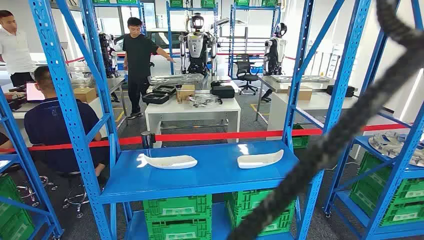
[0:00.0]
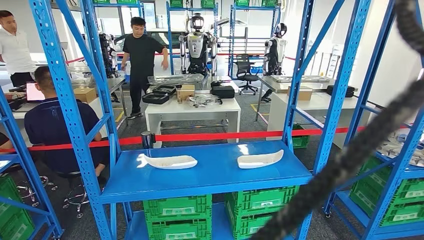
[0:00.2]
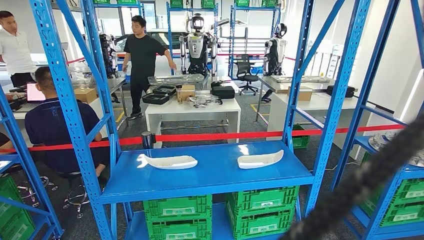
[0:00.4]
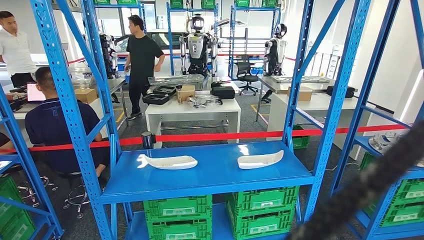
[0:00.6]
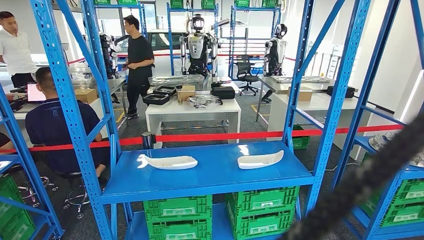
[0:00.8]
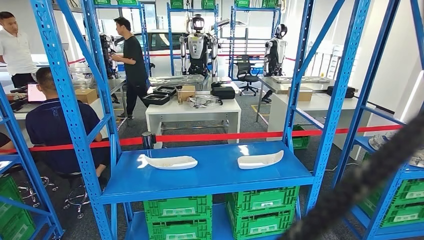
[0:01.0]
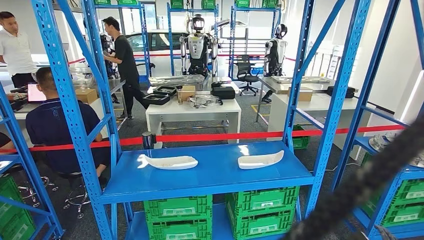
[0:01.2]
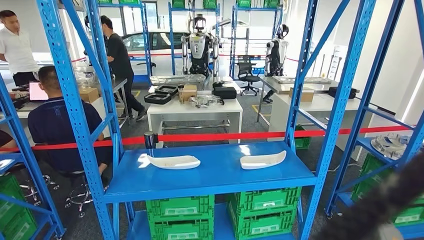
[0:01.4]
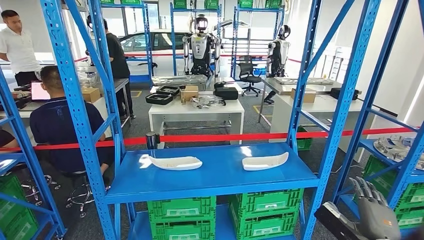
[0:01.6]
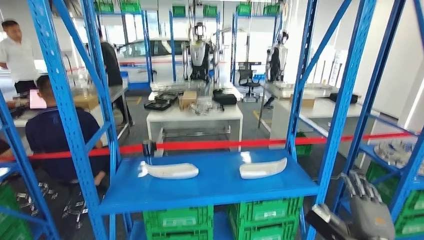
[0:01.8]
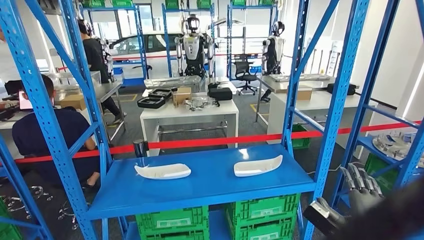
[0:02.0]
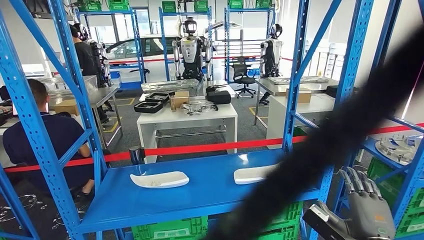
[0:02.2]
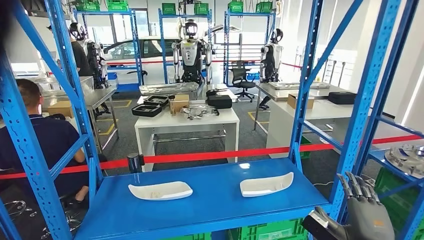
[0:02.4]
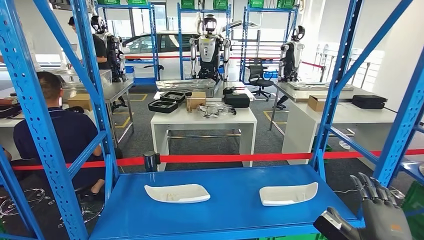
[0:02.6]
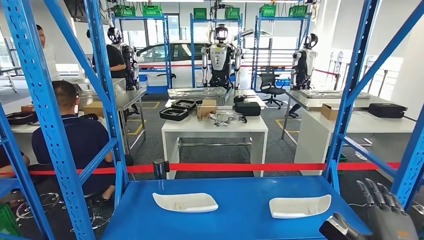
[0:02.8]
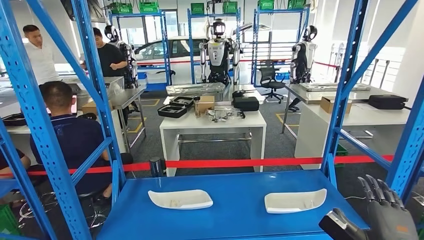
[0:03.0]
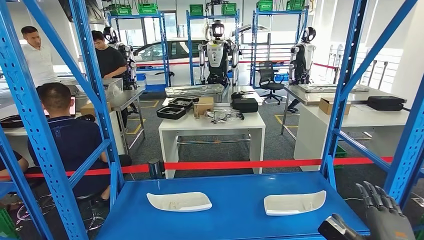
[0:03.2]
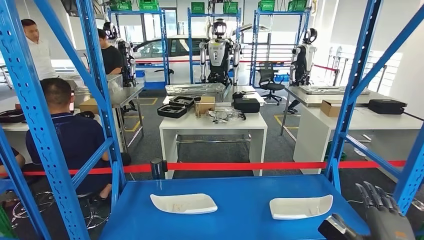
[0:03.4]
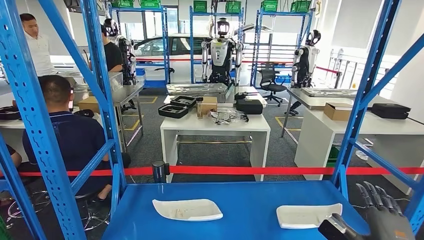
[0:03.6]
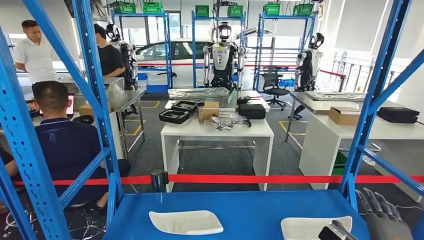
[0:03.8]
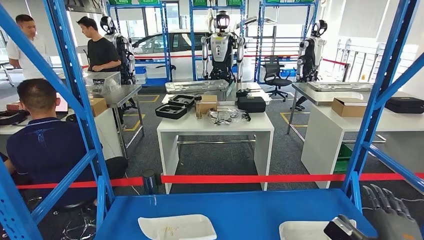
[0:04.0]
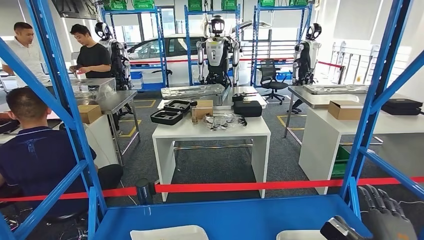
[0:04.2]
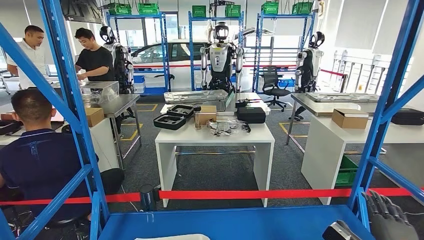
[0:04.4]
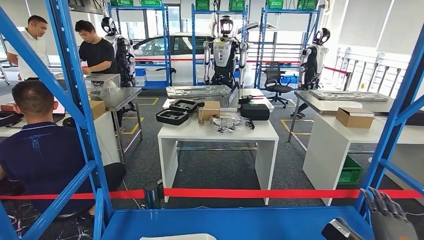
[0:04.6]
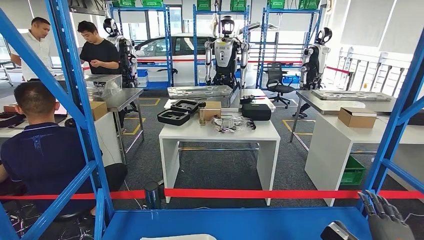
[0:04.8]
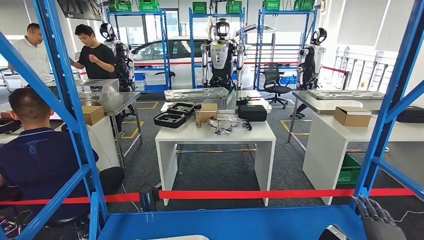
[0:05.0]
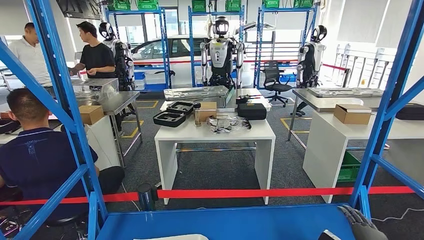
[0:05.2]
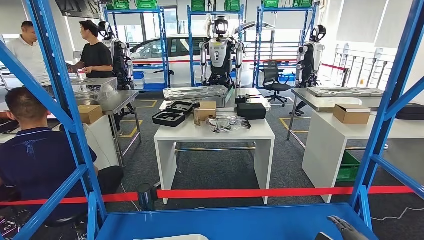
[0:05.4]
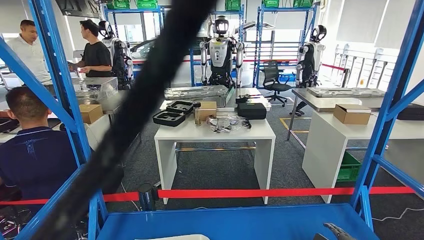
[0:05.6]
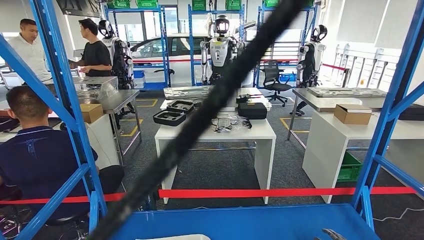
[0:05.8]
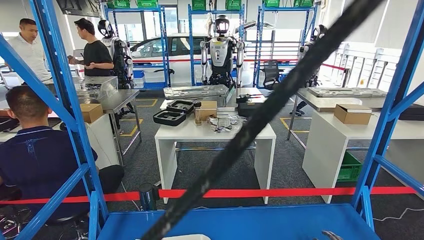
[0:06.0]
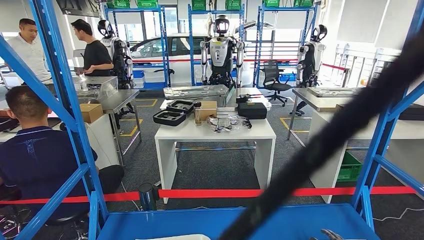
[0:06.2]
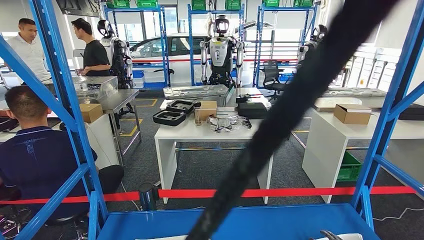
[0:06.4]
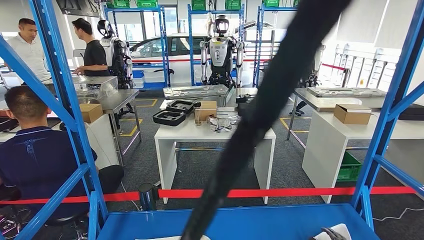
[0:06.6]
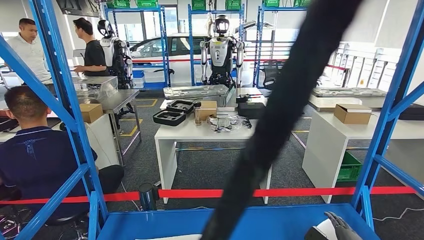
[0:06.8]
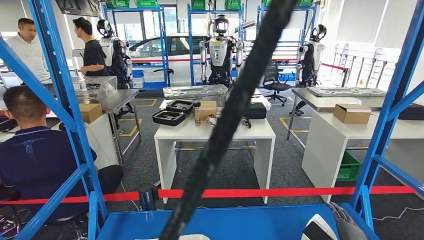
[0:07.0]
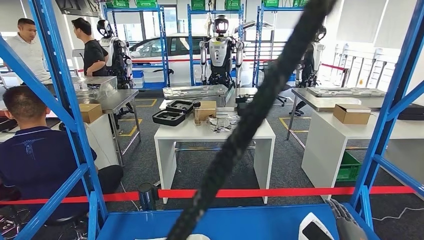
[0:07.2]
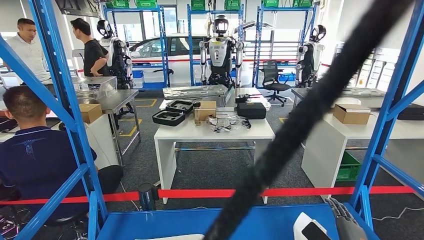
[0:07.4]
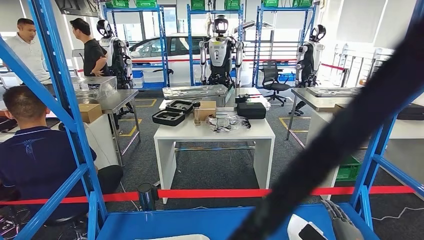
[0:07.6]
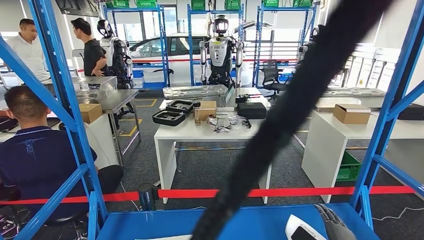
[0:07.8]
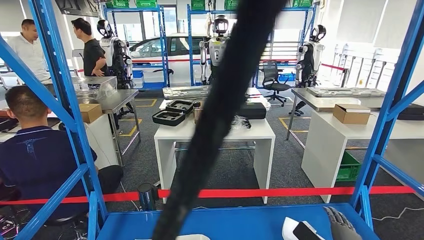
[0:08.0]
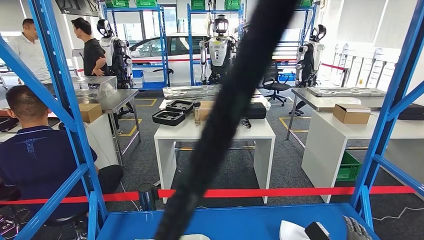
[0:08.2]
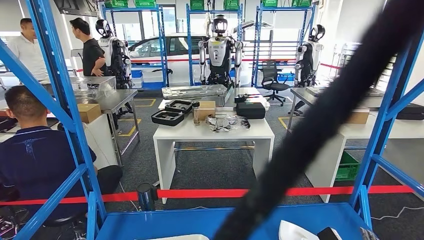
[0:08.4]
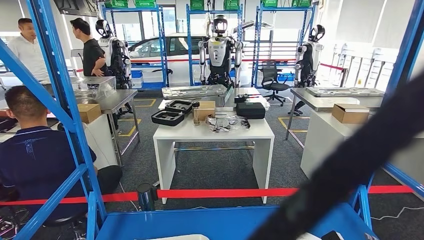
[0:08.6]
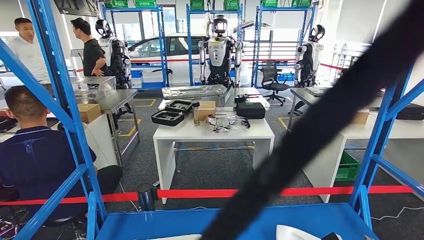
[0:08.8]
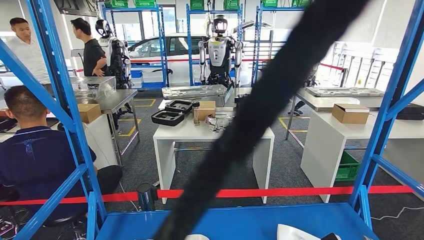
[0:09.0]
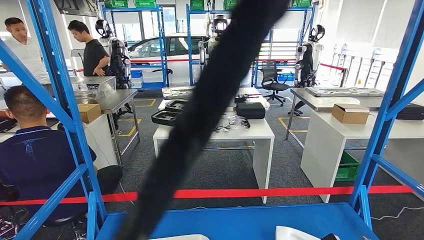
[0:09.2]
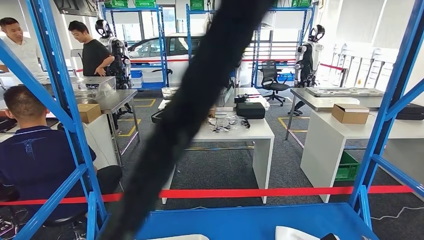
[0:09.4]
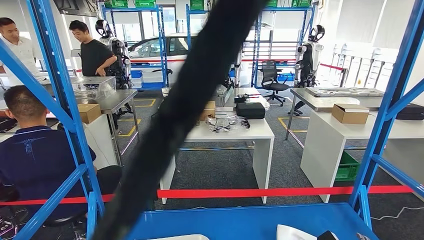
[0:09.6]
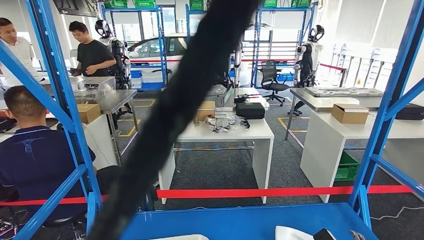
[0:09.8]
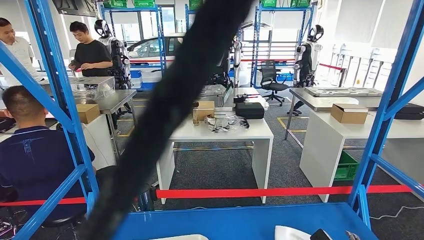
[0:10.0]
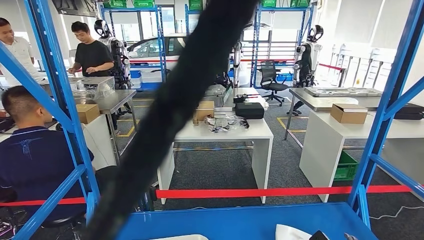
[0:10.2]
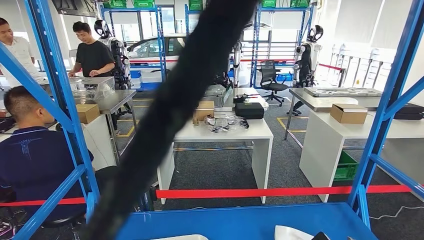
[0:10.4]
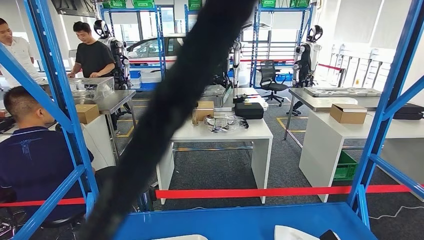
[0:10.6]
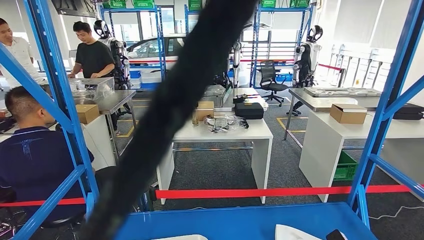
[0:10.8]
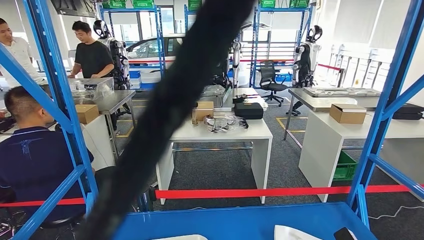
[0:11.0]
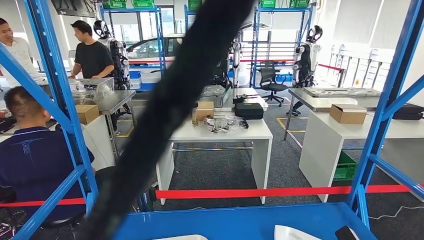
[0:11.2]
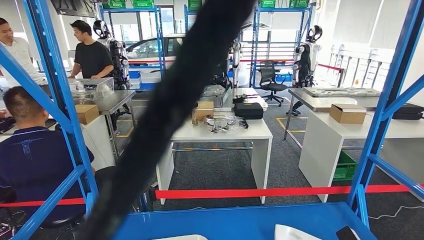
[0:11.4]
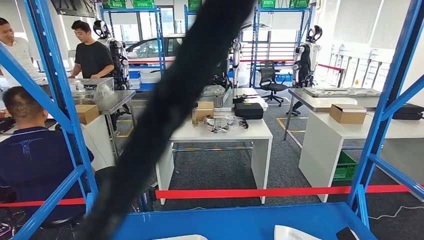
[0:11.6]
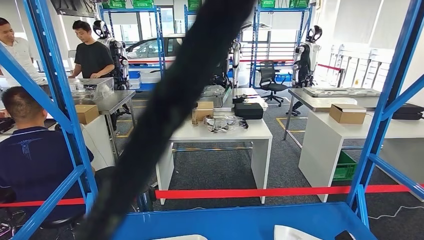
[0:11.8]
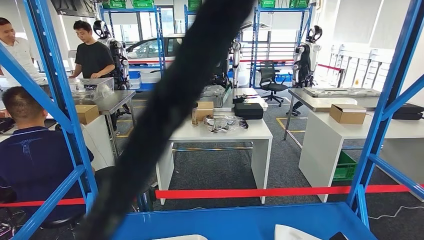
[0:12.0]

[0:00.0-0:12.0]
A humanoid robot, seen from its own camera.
0:10.4 to 0:12.0: The hands stay close to where they were, moving slightly.

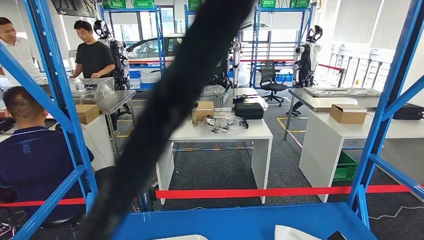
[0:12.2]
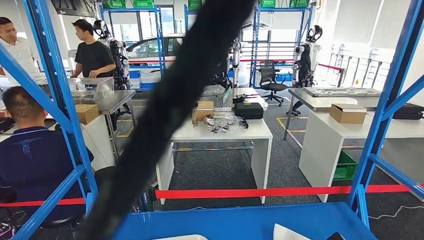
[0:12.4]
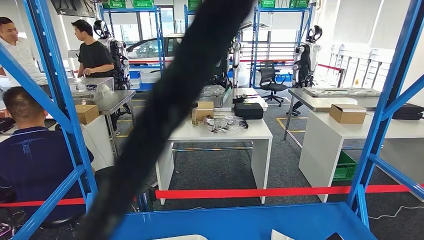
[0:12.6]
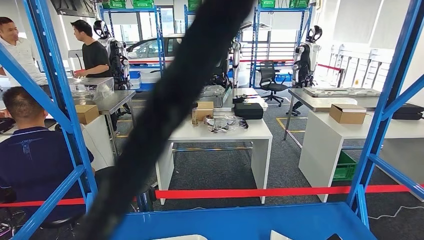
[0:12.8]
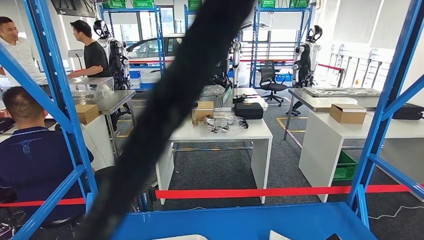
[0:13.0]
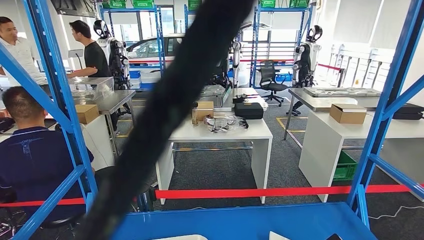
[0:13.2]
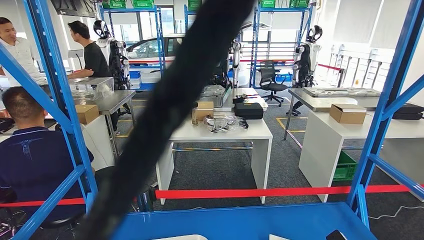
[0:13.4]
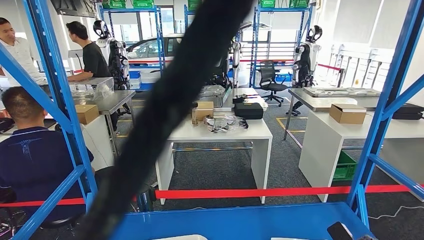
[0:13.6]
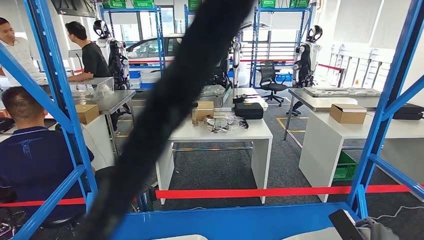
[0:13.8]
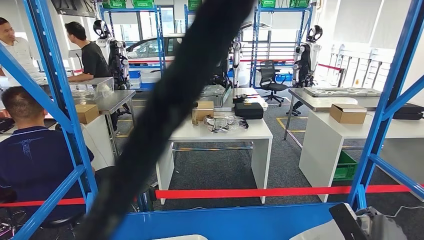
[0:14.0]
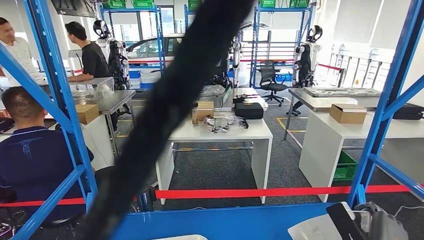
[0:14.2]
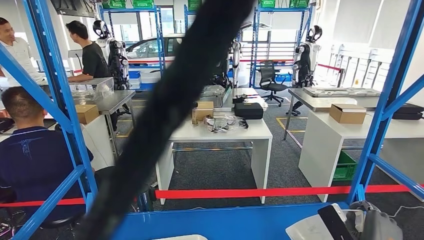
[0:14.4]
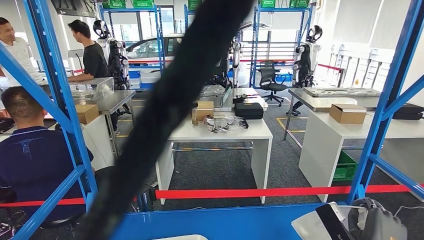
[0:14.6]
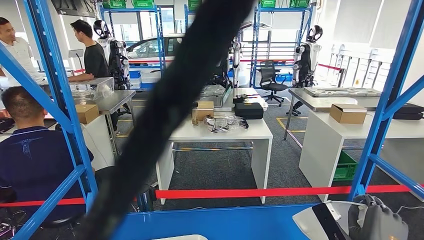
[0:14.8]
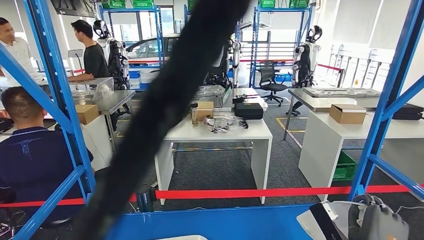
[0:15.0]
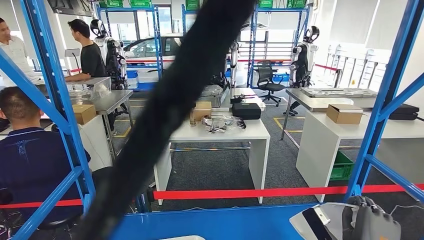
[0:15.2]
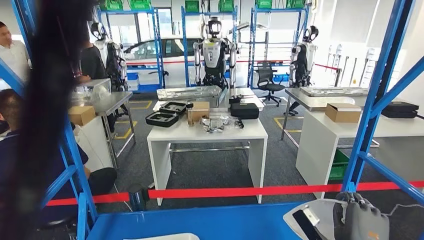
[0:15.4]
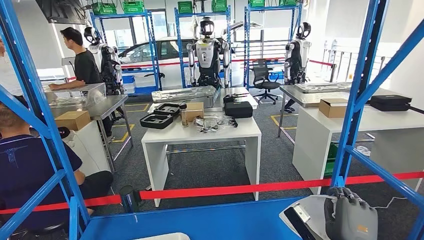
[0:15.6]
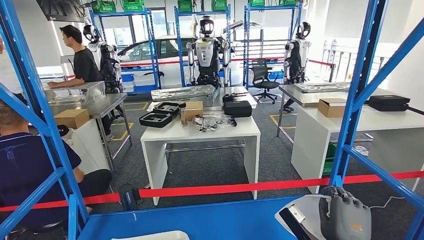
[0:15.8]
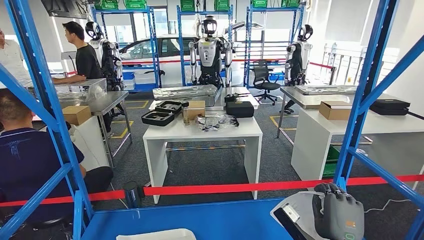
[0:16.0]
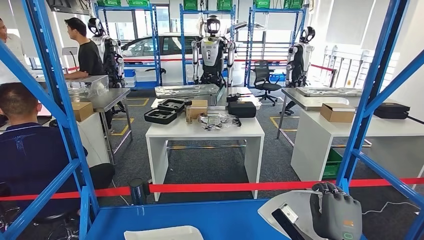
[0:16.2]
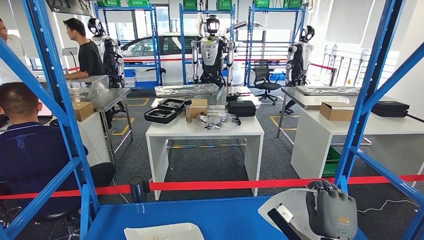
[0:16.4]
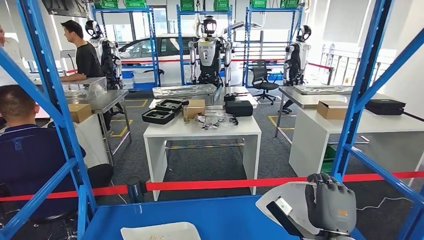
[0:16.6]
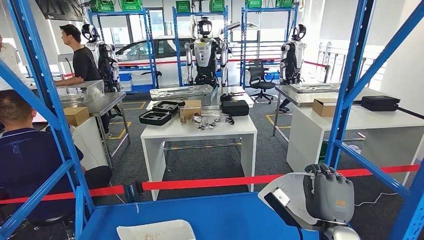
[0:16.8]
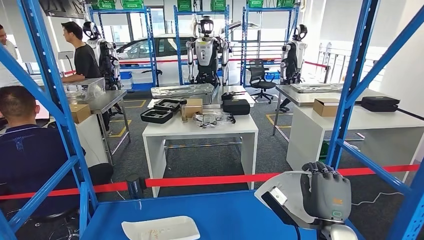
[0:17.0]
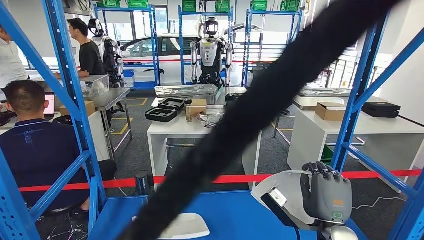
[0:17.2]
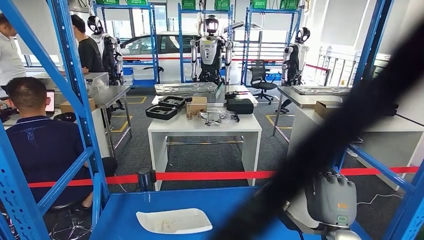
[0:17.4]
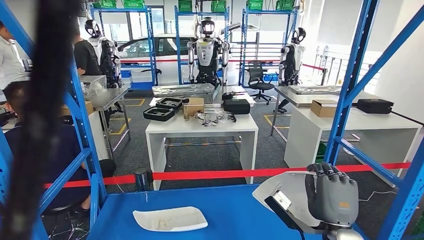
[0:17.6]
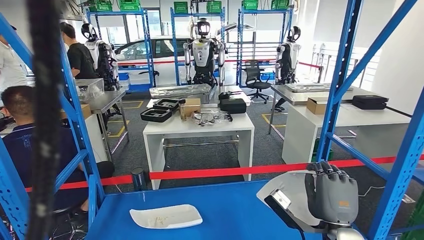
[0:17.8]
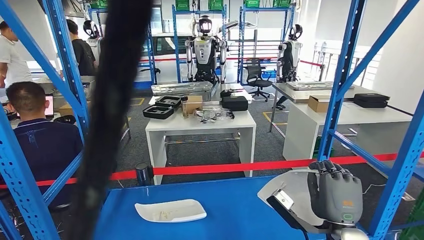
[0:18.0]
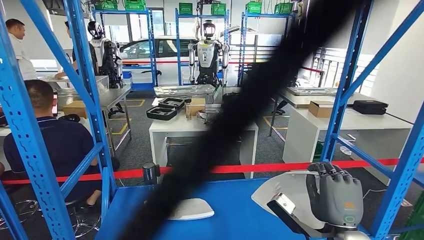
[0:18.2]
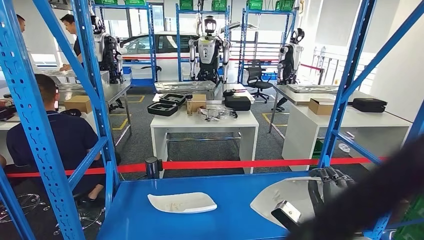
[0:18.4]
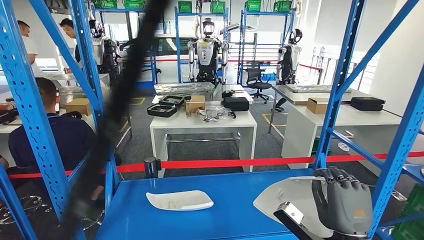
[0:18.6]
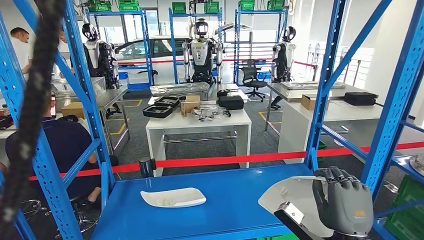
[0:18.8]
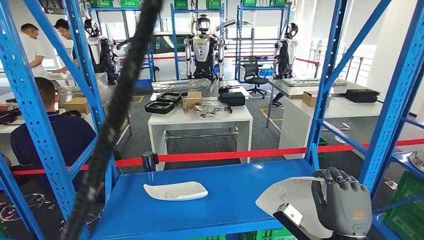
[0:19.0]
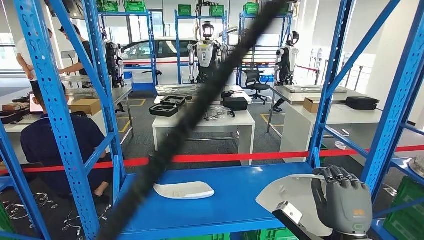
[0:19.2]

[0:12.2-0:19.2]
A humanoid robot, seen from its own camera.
Step, 0:12.2 to 0:16.6: Pick up the small component from the shelf.
0:12.2 to 0:13.6: The hands move only a little.
0:13.6 to 0:15.0: The right hand travels upward and to the left by some 10 cm.
